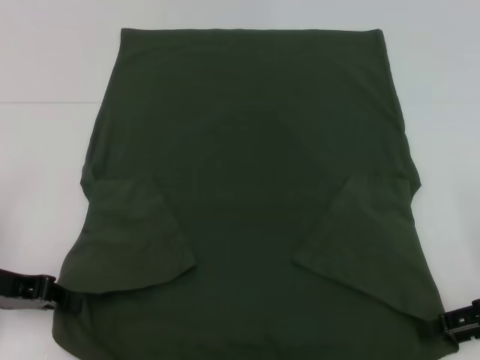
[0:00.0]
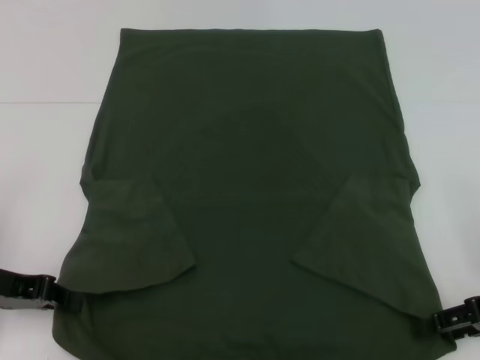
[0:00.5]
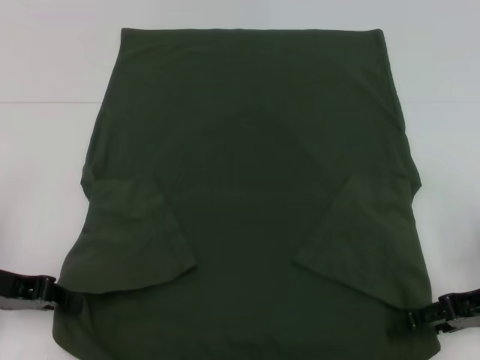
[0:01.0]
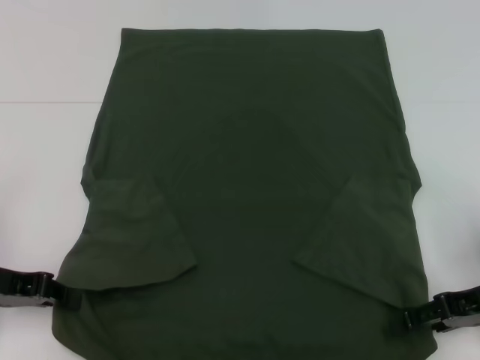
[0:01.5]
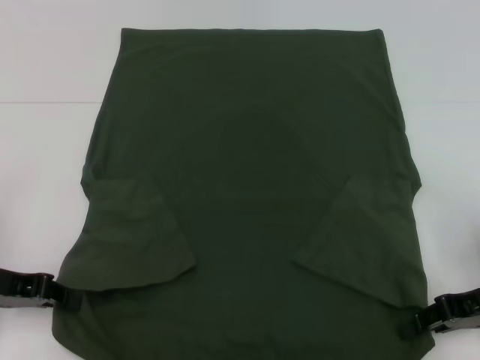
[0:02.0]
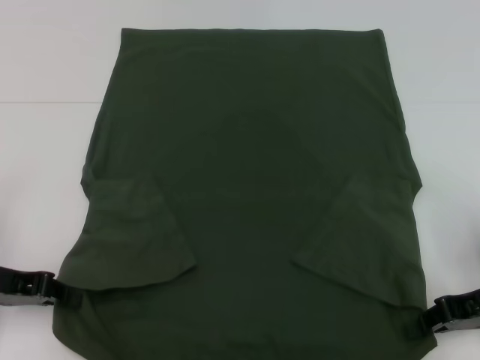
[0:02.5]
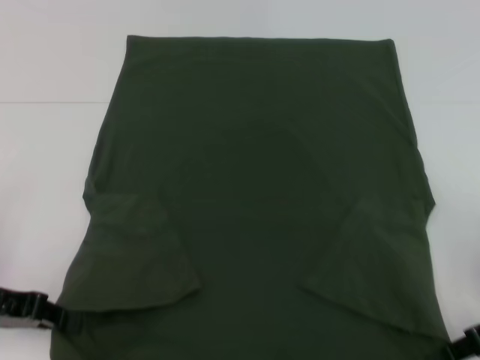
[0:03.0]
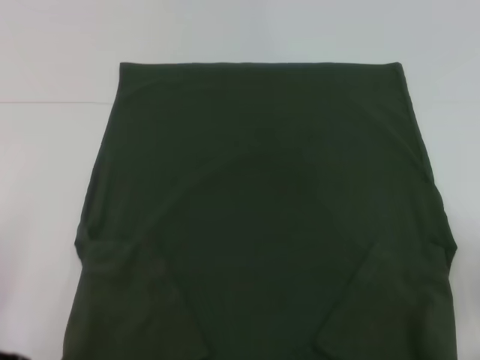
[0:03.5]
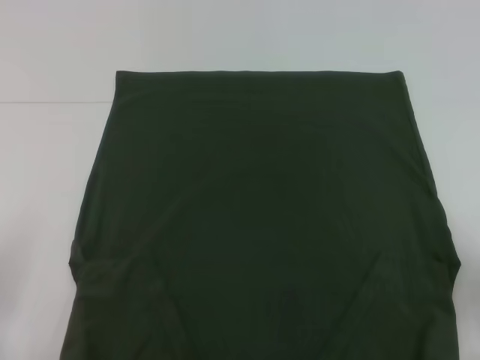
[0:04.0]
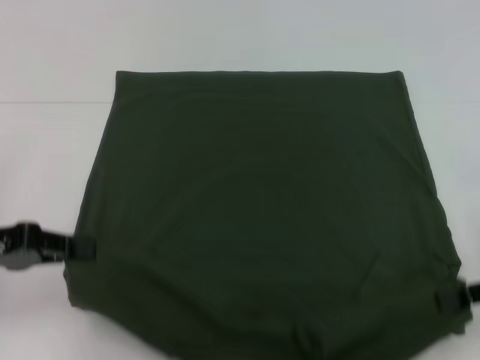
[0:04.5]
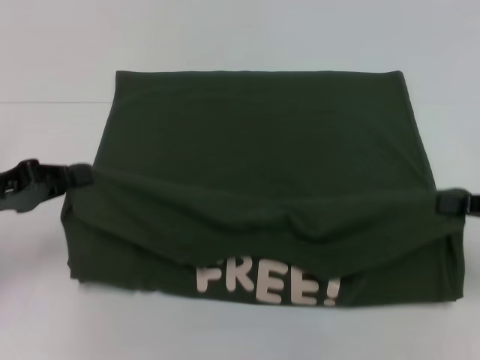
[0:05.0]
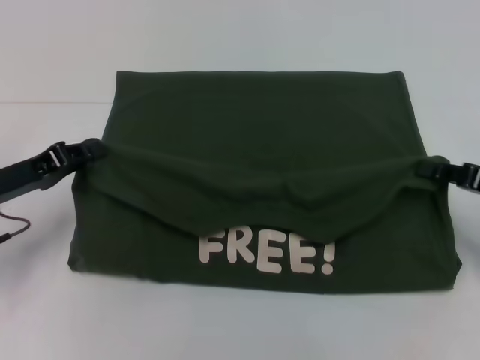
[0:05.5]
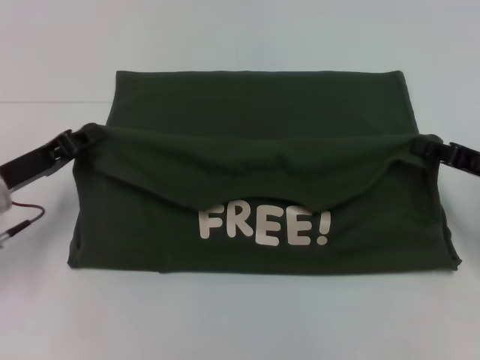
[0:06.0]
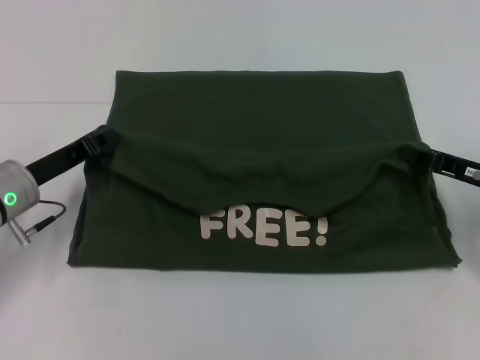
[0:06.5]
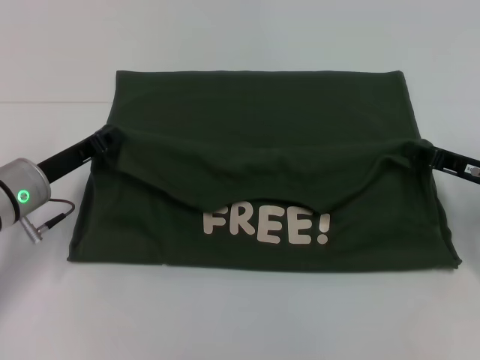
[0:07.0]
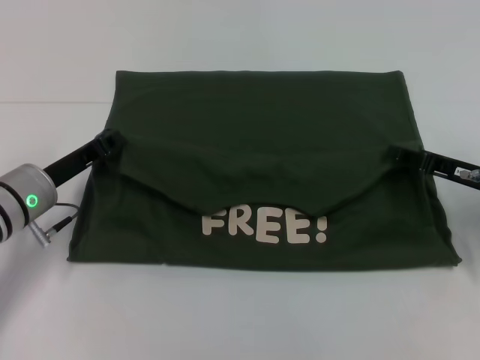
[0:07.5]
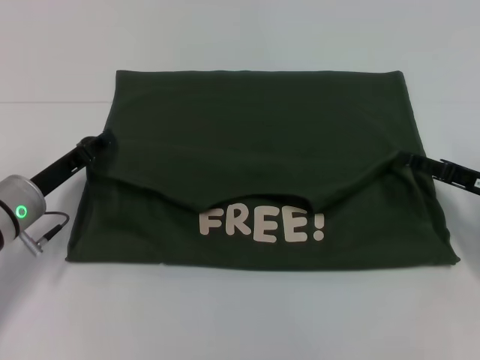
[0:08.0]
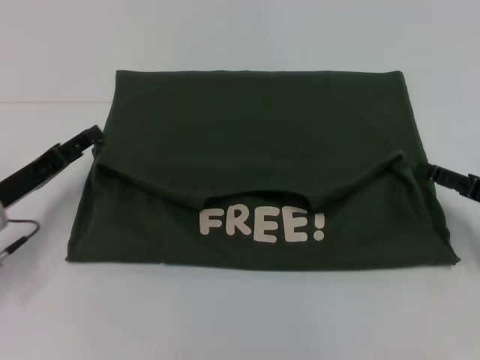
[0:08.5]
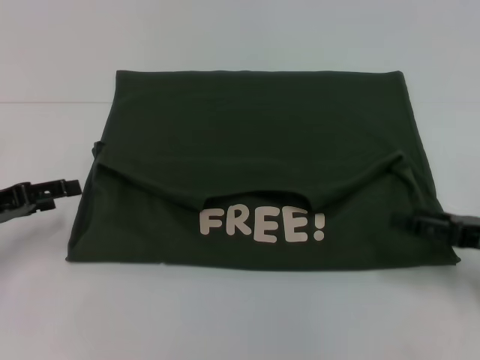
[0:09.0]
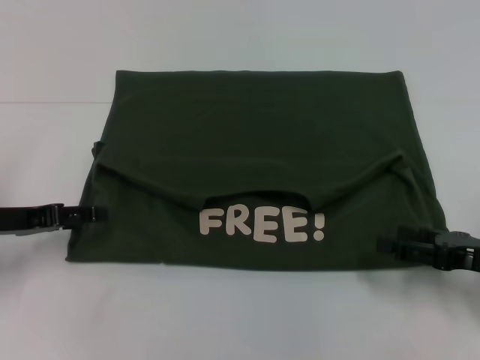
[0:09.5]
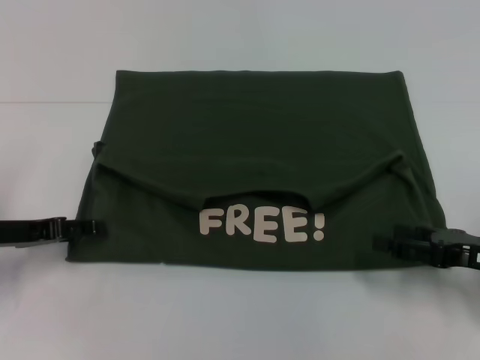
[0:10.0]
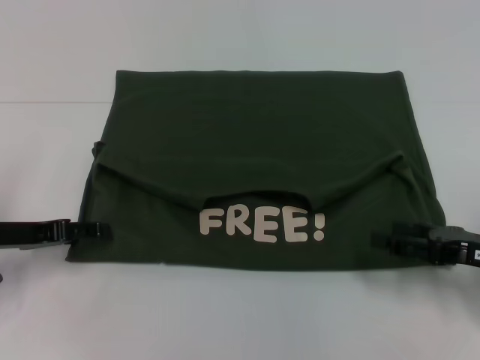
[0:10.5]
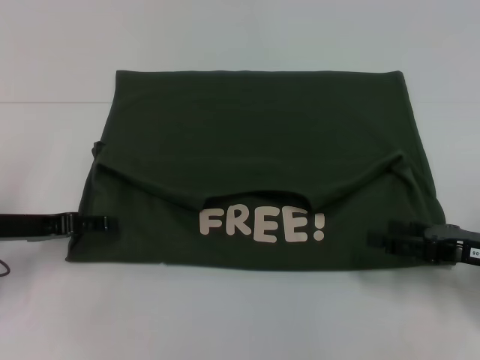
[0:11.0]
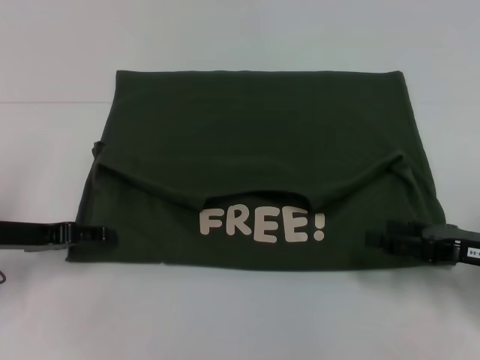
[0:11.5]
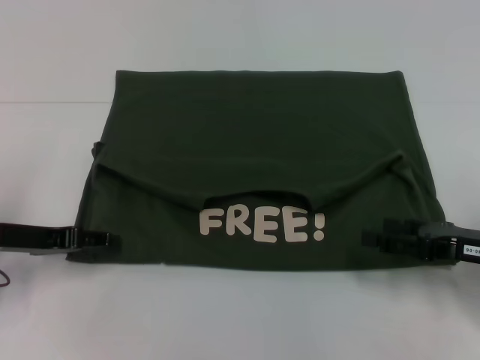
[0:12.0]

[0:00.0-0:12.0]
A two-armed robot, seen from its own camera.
Step, 0:00.0 to 0:02.5: Grab the bottom right corner with your right hand.
Step, 0:03.0 to 0:08.0: Fold the clothes with your left hand.
Step, 0:03.0 to 0:08.0: Fold the clothes with your right hand.
0:00.0 to 0:02.0: The right gripper closes up.
0:04.0 to 0:06.0: Both grippers move forward, some 10 cm.
0:06.0 to 0:08.0: The right gripper opens up.
0:08.0 to 0:10.0: The left gripper is displaced to the left by about 5 cm, and opens up; the right gripper travels backward by roughly 5 cm.
0:10.0 to 0:12.0: The grippers make only small movements.

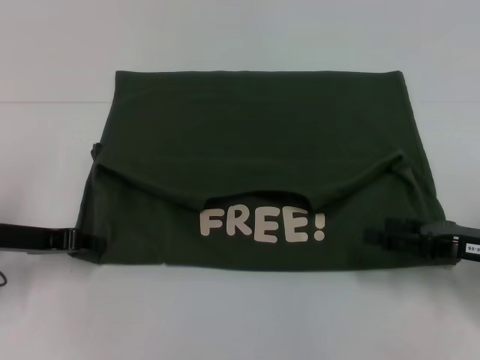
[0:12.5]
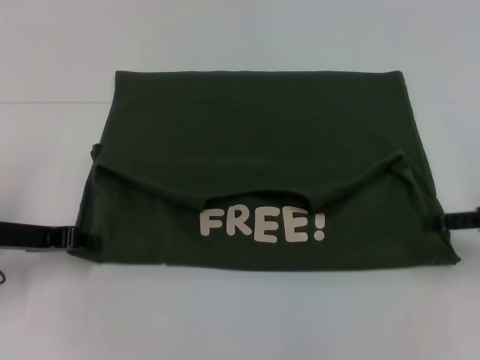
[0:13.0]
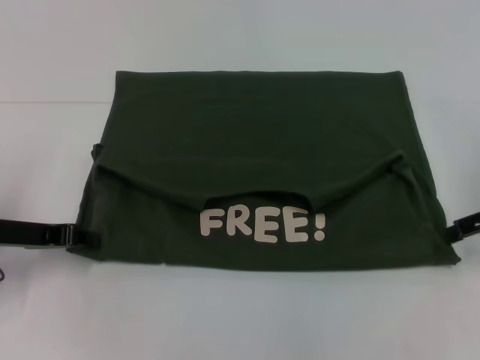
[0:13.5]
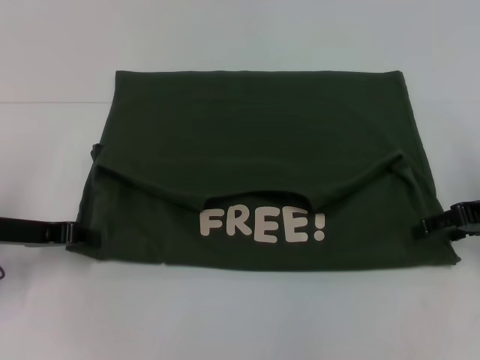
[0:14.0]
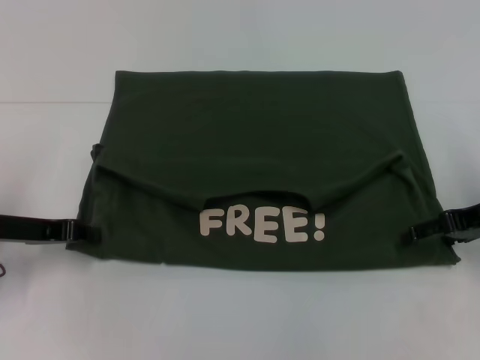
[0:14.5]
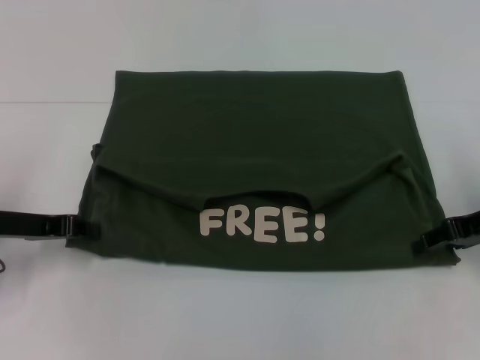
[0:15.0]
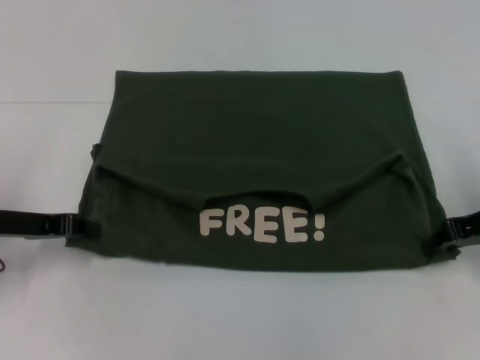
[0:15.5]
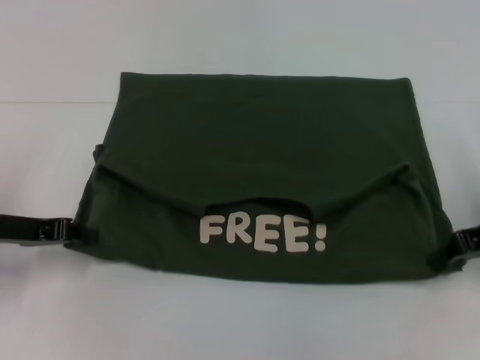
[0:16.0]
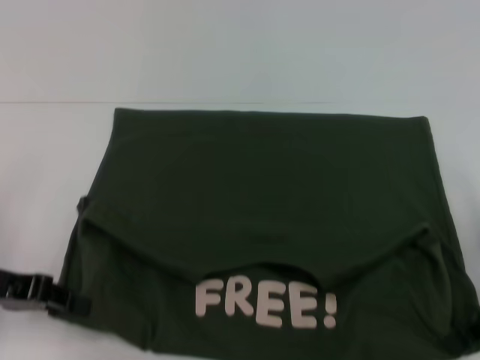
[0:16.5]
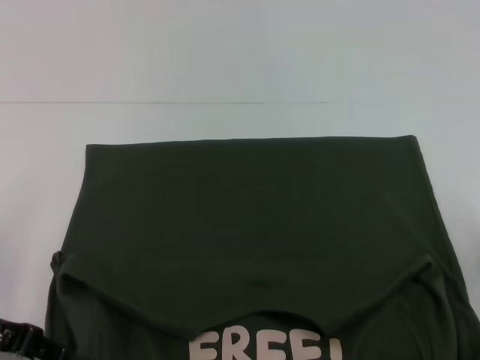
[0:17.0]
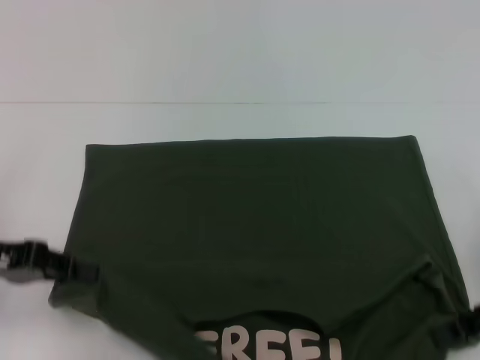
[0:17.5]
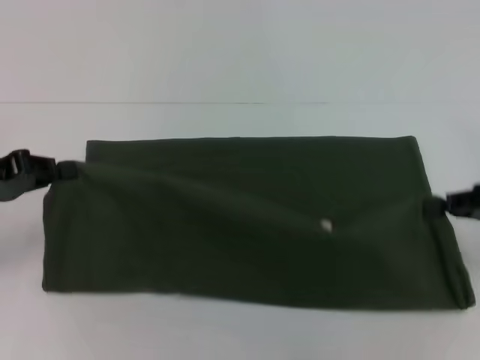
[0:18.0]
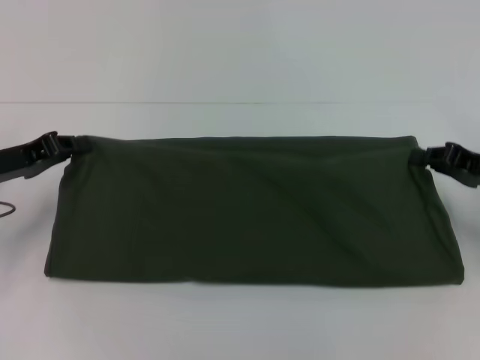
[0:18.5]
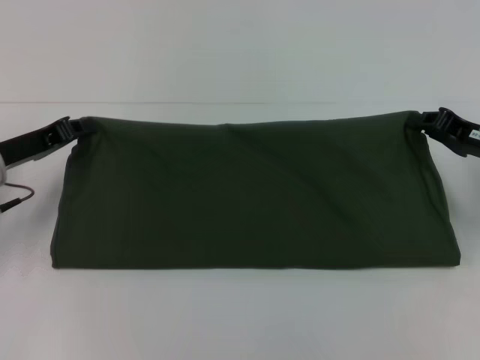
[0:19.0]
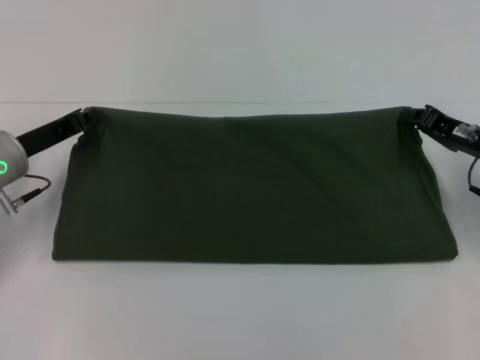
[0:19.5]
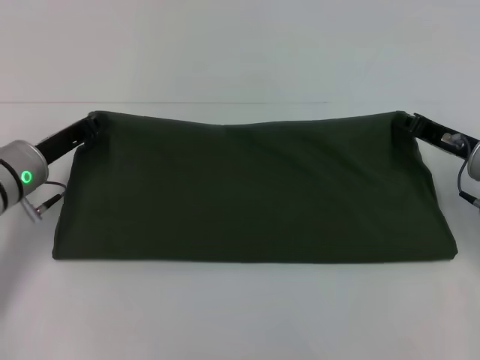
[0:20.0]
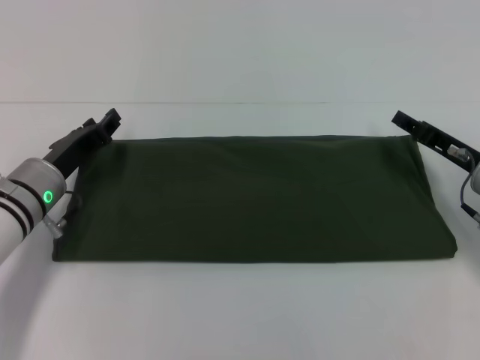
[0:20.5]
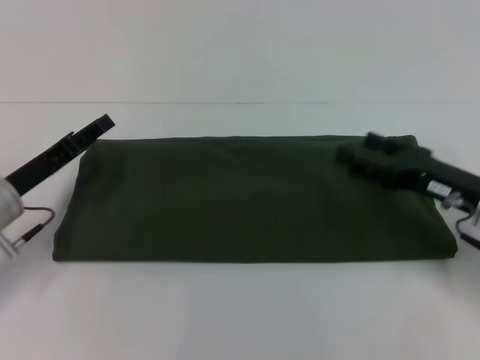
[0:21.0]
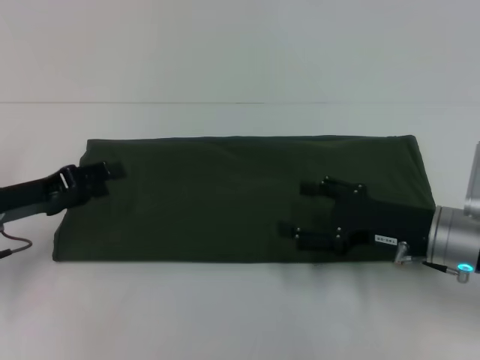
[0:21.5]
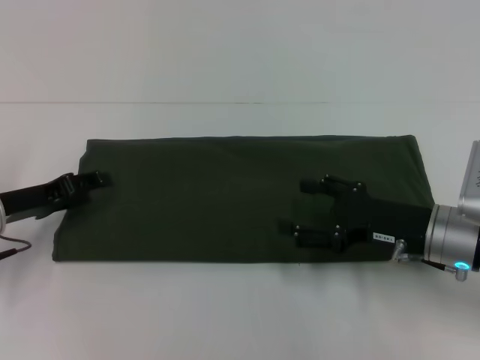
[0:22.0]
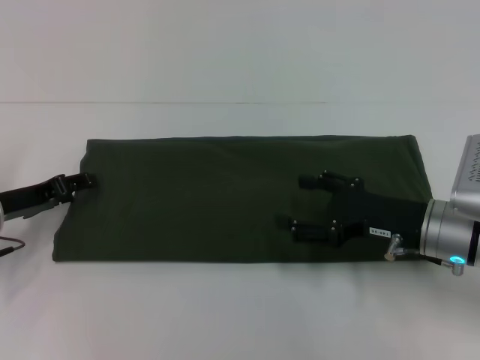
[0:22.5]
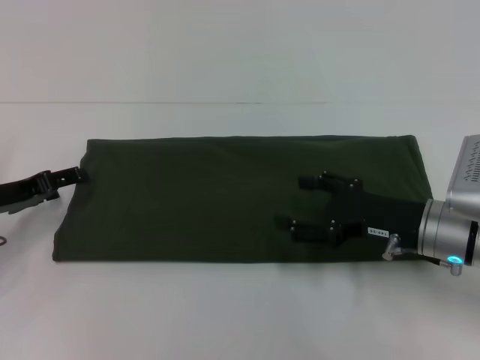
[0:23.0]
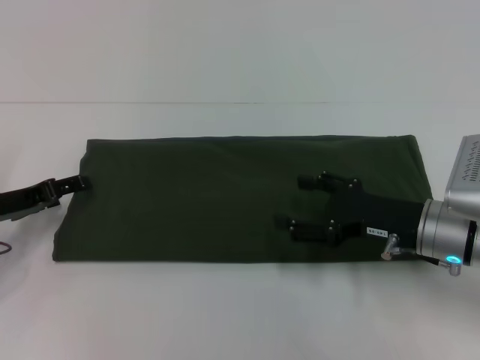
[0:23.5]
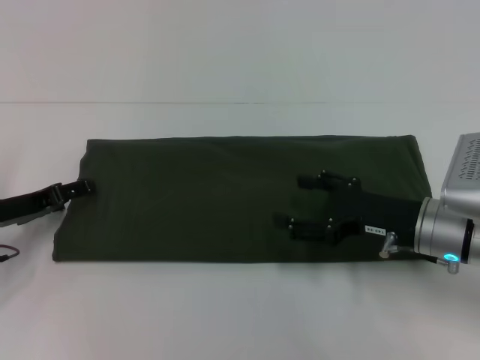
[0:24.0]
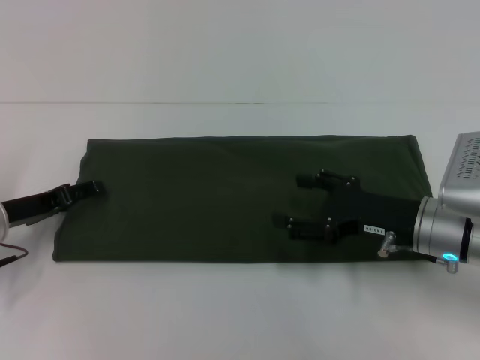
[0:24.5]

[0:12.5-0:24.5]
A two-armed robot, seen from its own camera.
Step, 0:12.5 to 0:16.5: Pull the clothes with your left hand.
Step, 0:12.5 to 0:16.5: Pull the clothes with your right hand.
Step, 0:17.0 to 0:20.5: Fold the clothes with your right hand.
0:12.5 to 0:14.5: The right gripper heads forward and upward, covering about 10 cm; the left gripper closes.
0:14.5 to 0:16.5: The right gripper goes roughly 5 cm backward, and closes up; the left gripper ends up some 5 cm from where it was.
0:16.5 to 0:18.5: The two grippers go approximately 5 cm forward.
0:18.5 to 0:20.5: The right gripper changes place by some 5 cm, and opens its fingers; the left gripper is displaced to the right and downward by approximately 10 cm, and opens.
0:20.5 to 0:22.5: The right gripper heads to the left and backward, covering some 10 cm, and opens up. Meanwhile the left gripper heads to the left, covering some 5 cm.
0:22.5 to 0:24.5: The grippers move only a little.

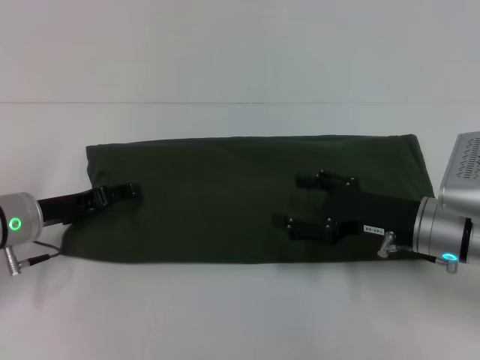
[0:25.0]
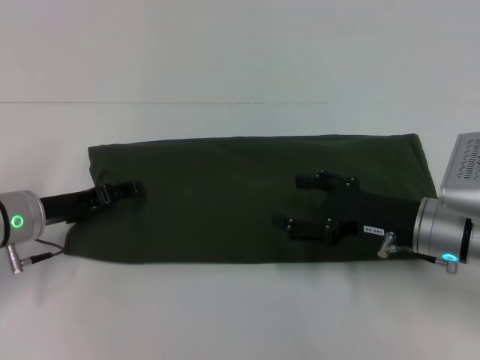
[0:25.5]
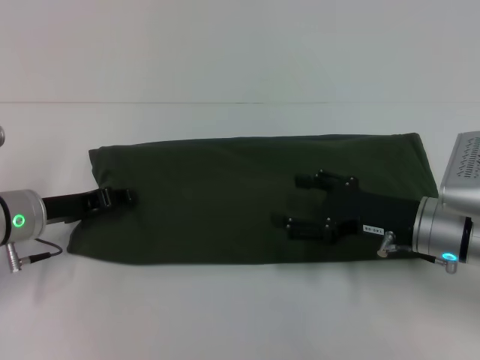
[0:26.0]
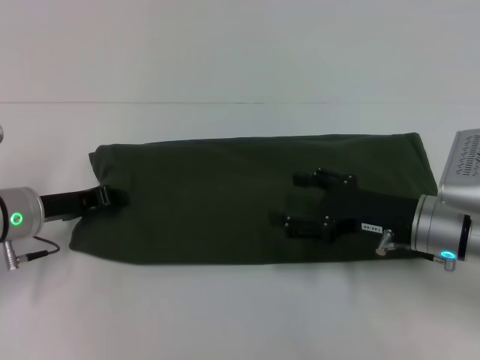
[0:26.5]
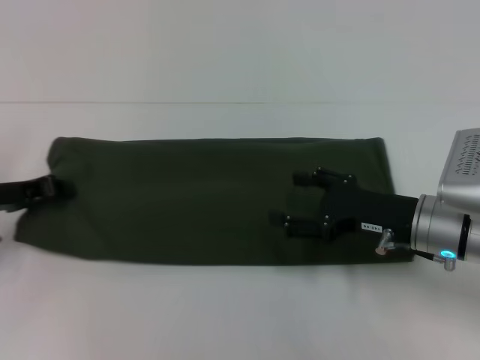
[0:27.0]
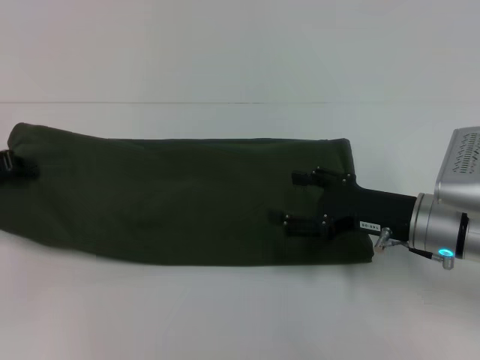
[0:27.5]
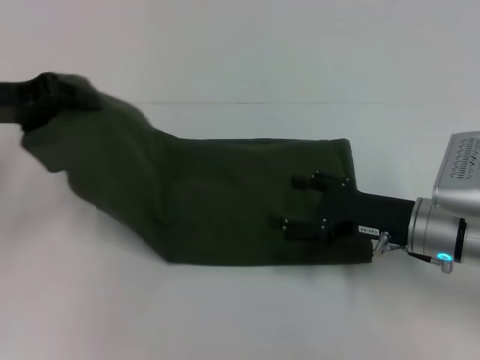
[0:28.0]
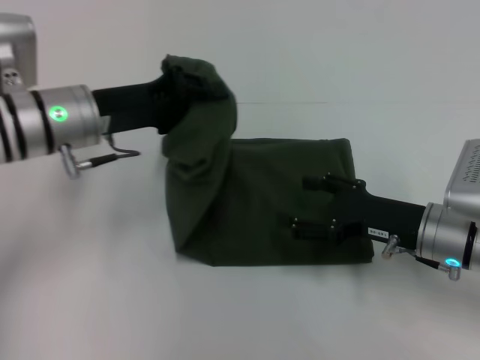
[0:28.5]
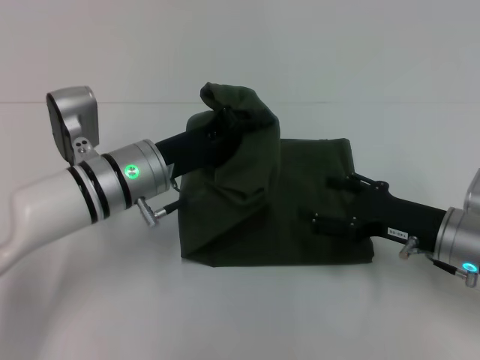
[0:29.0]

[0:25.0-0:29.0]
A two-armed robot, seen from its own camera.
0:25.0 to 0:27.0: The left gripper is displaced to the left by approximately 5 cm, and closes its fingers.
0:27.0 to 0:29.0: The left gripper travels to the right by roughly 20 cm.
